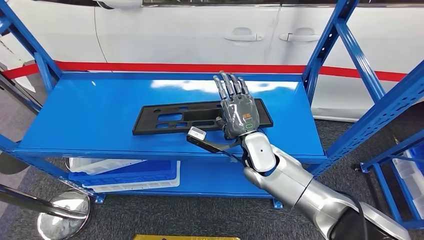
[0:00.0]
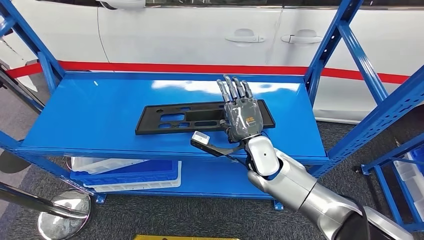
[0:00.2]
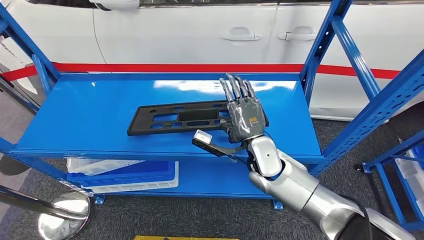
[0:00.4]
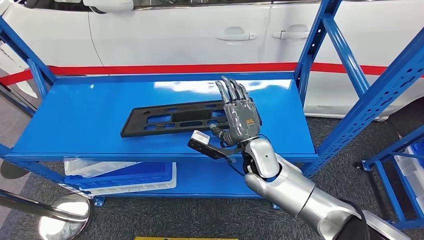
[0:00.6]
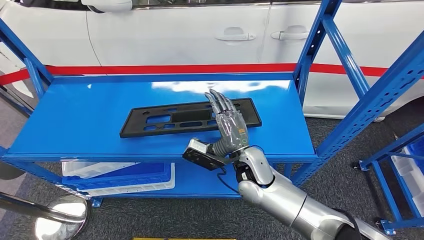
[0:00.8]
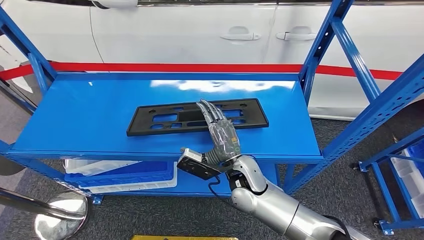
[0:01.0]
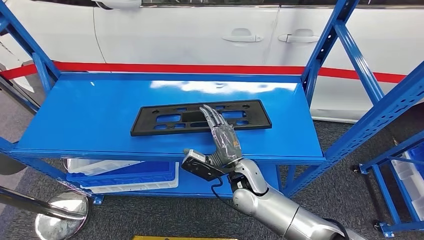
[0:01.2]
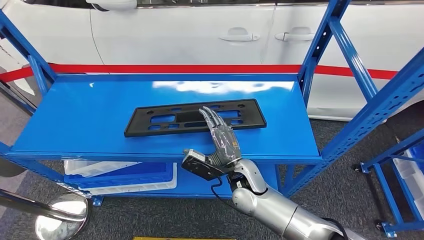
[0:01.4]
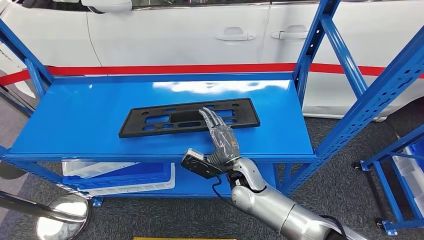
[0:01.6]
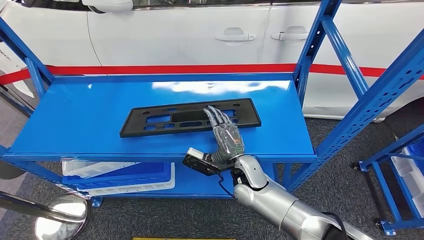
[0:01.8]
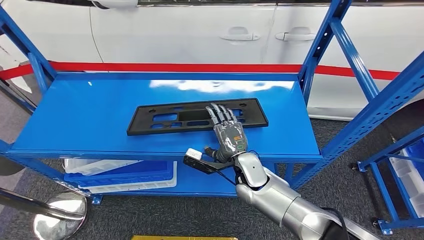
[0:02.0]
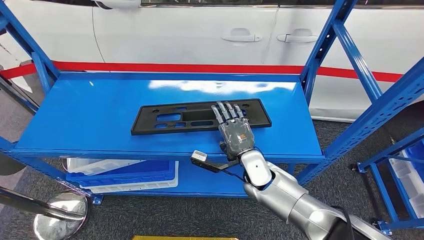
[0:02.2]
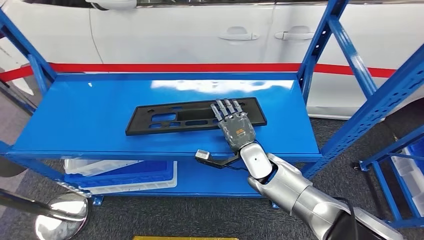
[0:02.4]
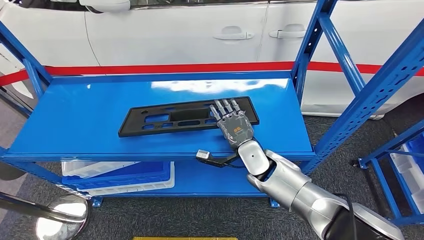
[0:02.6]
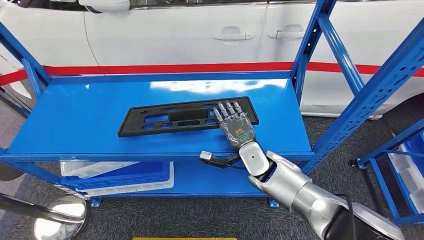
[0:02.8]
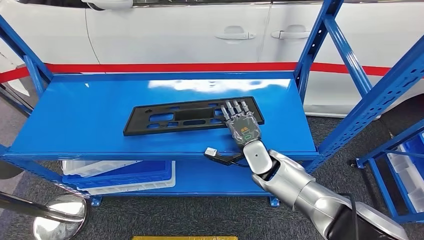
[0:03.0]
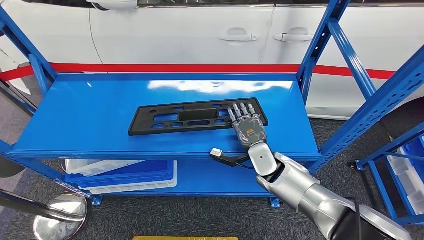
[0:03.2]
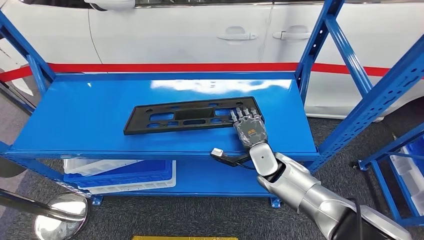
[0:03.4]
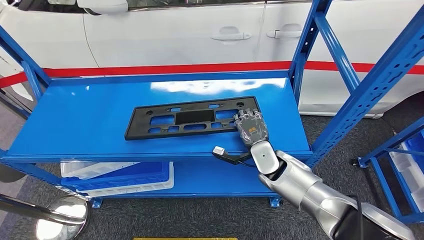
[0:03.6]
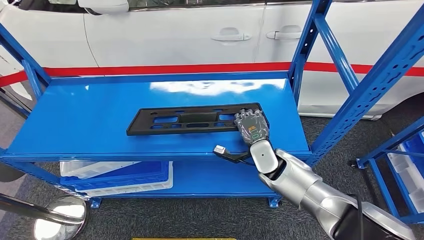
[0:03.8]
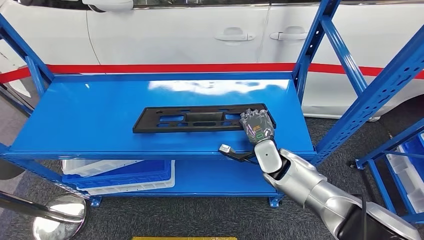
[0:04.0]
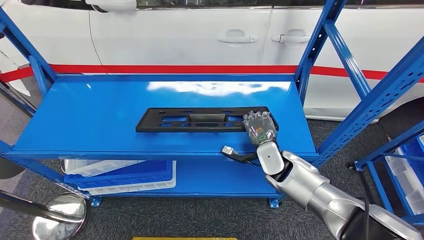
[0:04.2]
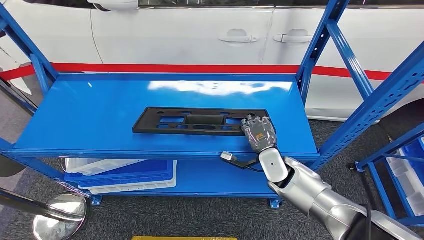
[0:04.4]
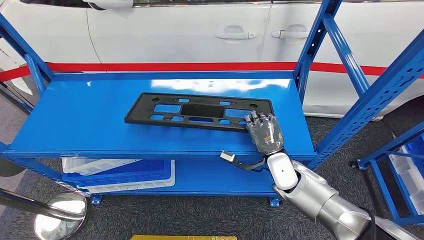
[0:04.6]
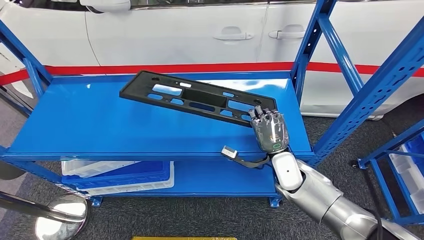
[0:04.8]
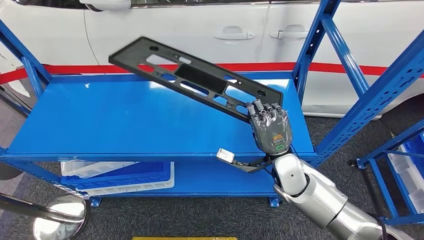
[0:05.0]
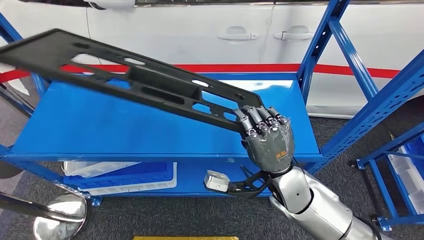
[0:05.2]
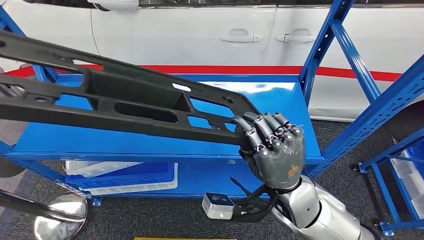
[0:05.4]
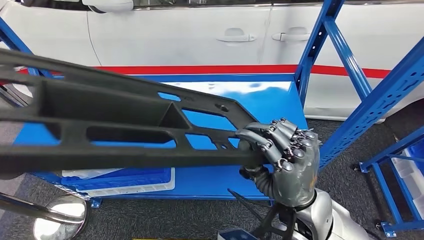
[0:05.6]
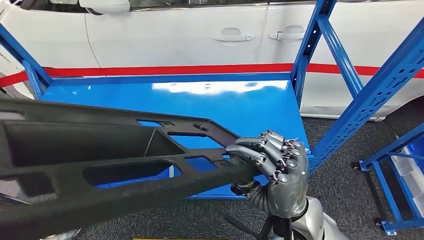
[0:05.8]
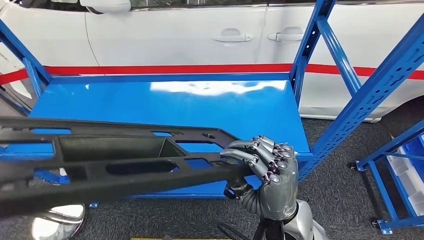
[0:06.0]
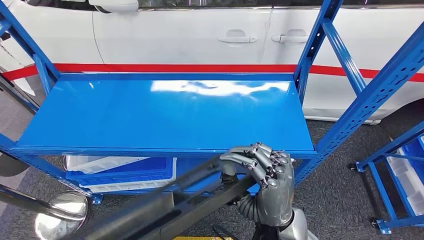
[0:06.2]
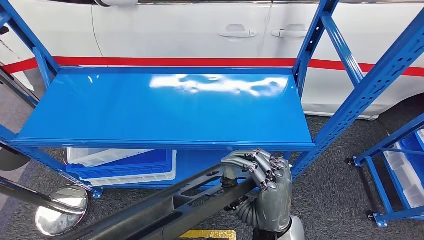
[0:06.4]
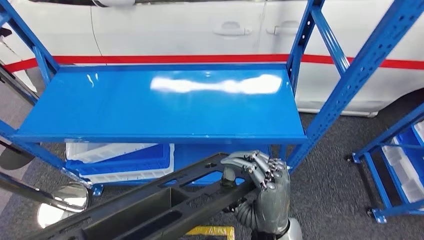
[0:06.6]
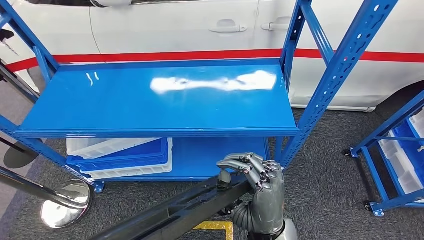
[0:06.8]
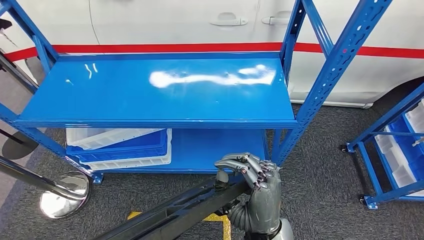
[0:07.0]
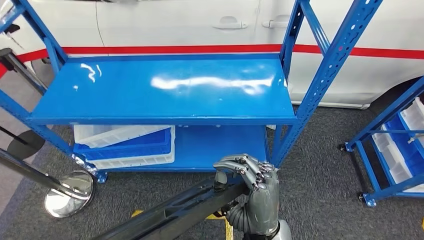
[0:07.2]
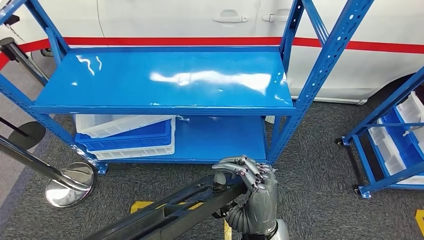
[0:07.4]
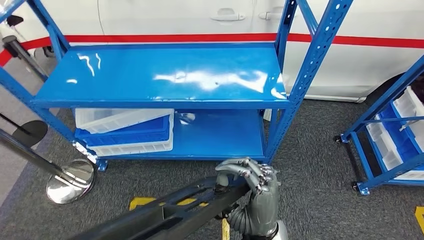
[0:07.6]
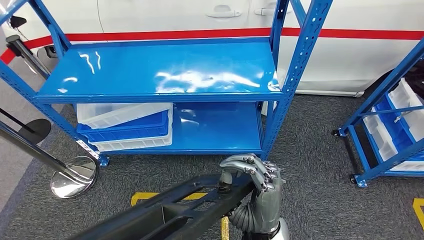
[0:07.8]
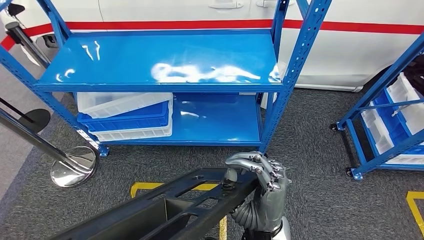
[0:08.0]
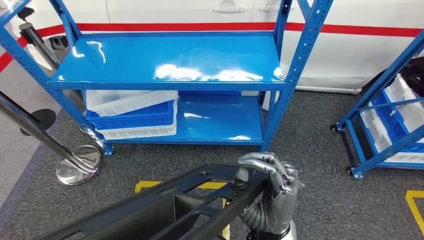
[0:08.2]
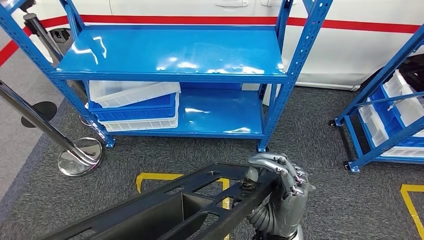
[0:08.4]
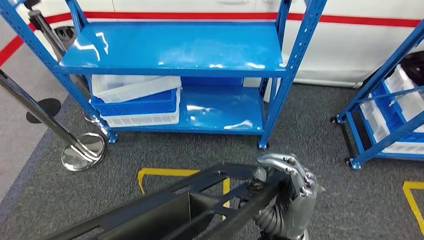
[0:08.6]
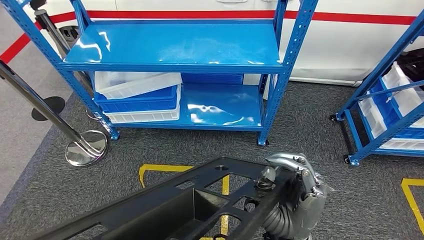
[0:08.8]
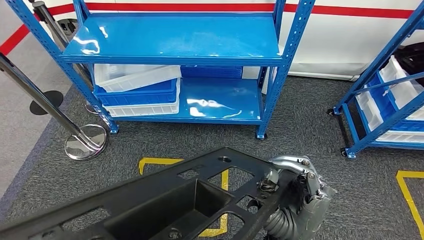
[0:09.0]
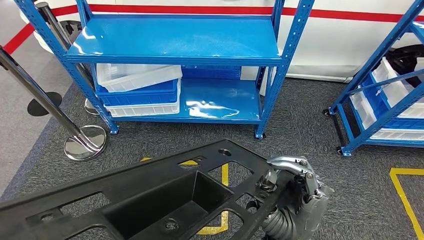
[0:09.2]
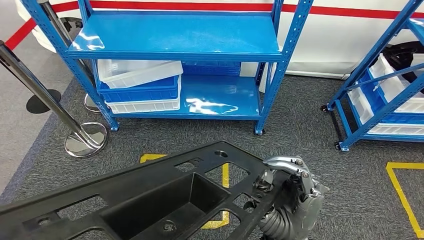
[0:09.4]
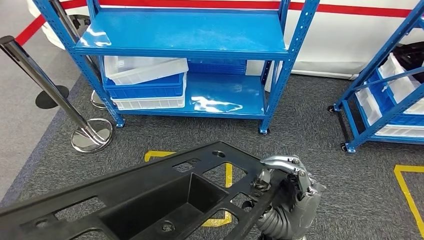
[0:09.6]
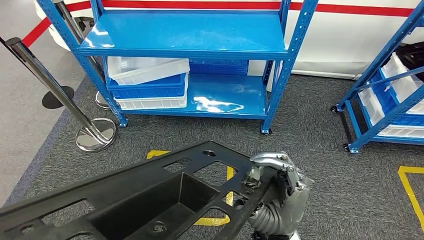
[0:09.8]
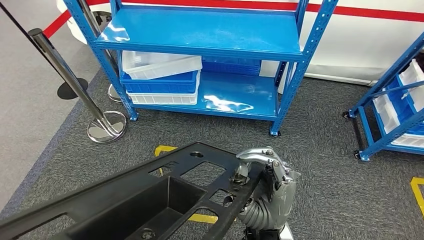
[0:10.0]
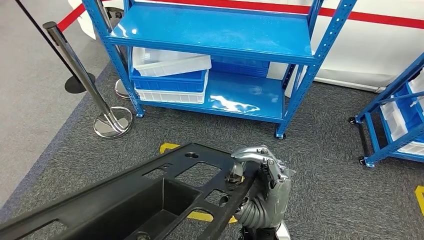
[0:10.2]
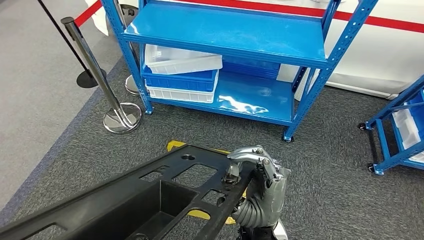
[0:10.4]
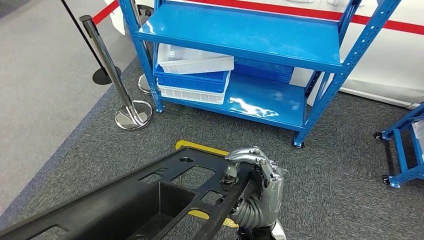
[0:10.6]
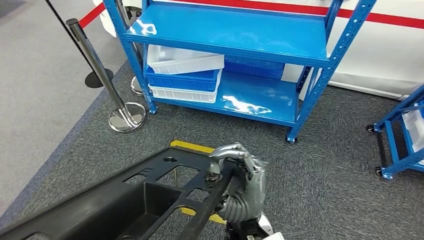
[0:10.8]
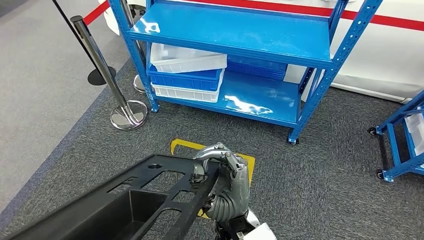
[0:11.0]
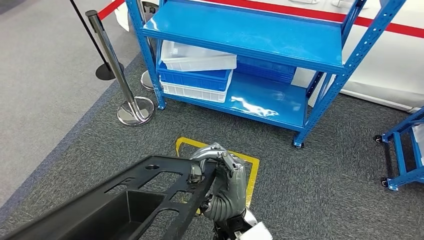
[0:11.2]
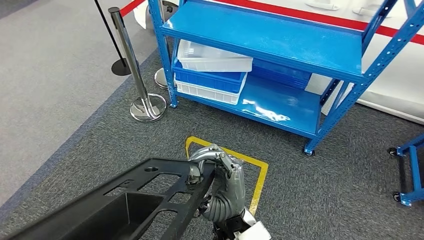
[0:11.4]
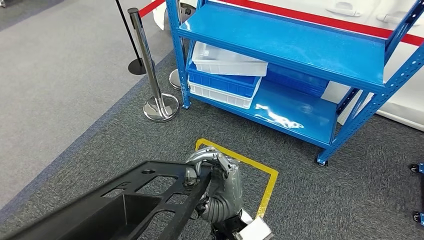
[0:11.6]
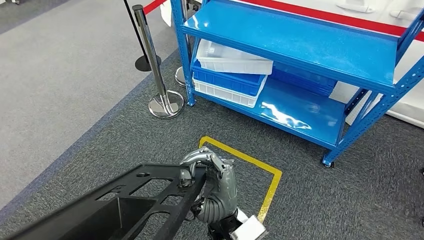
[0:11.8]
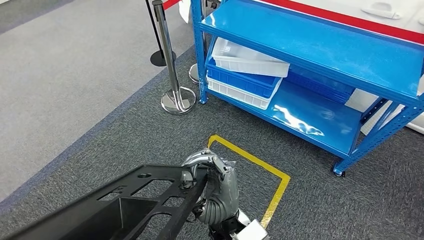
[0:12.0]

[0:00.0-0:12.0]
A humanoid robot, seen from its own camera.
Step, 0:00.0 to 0:06.8: Pick up the large material from the shelf.

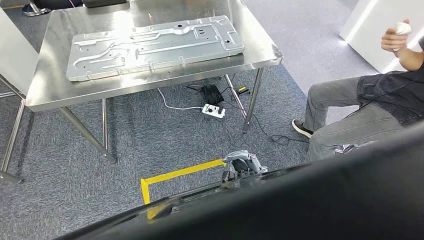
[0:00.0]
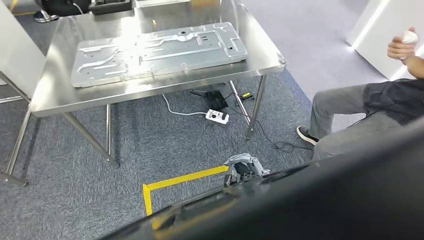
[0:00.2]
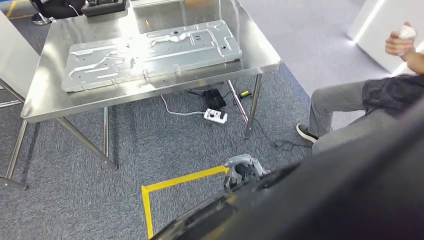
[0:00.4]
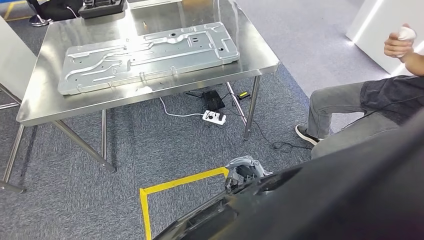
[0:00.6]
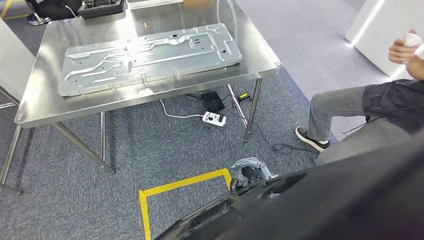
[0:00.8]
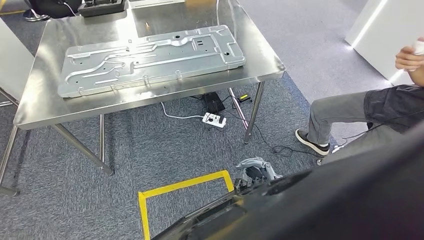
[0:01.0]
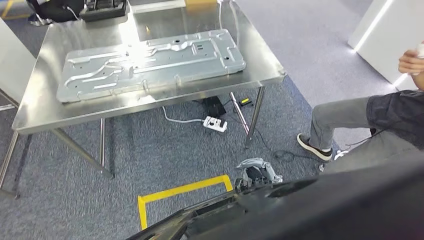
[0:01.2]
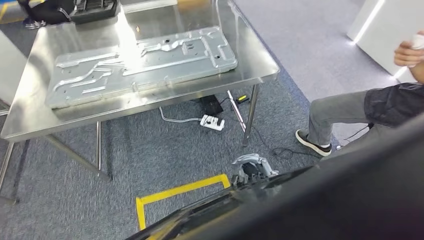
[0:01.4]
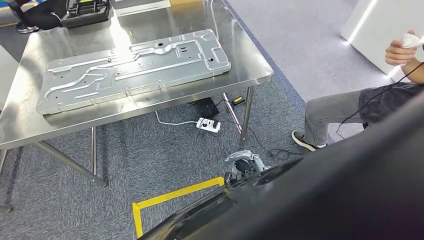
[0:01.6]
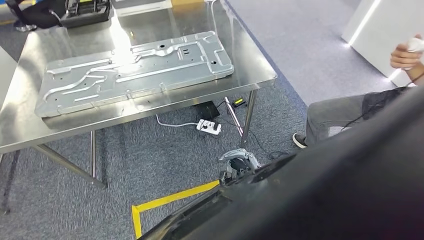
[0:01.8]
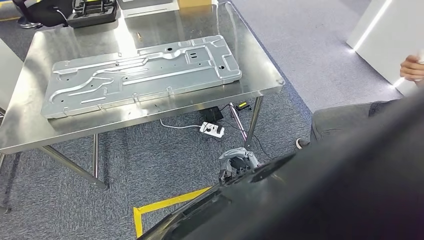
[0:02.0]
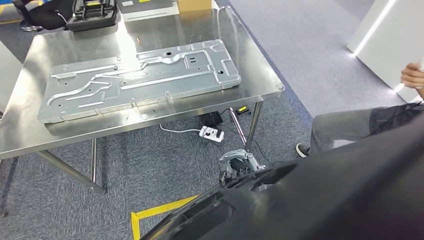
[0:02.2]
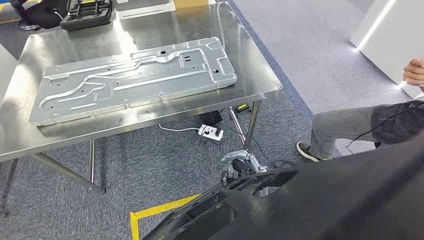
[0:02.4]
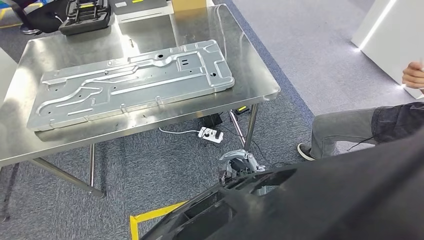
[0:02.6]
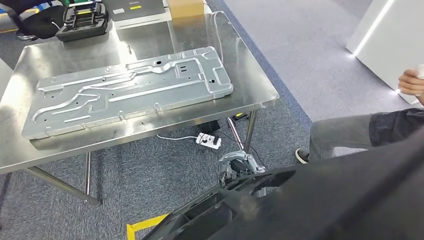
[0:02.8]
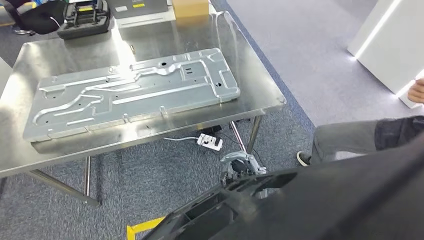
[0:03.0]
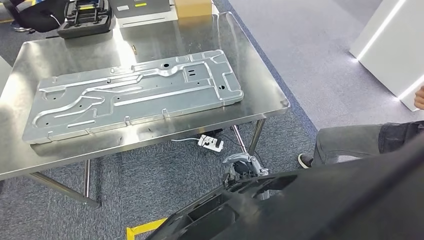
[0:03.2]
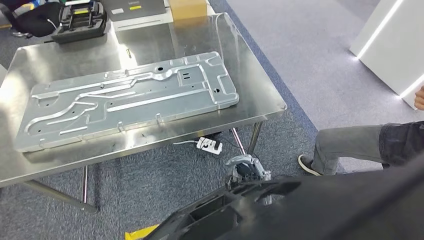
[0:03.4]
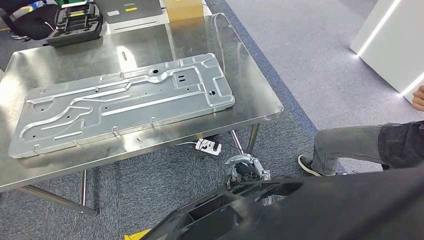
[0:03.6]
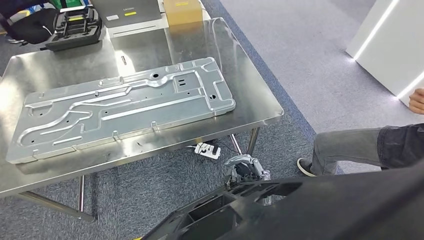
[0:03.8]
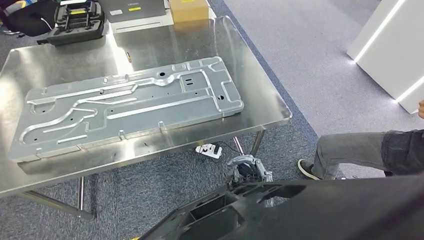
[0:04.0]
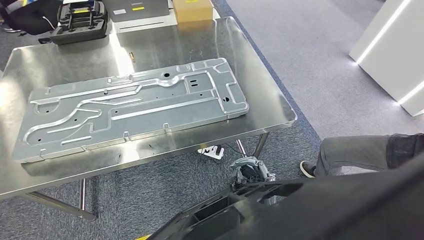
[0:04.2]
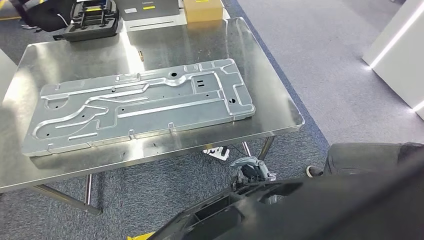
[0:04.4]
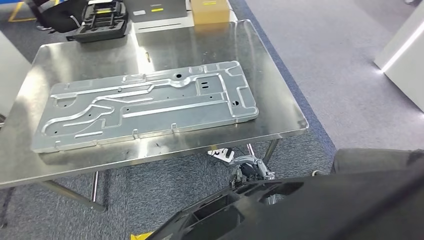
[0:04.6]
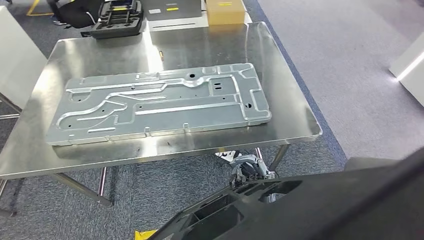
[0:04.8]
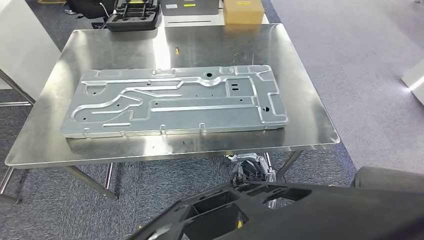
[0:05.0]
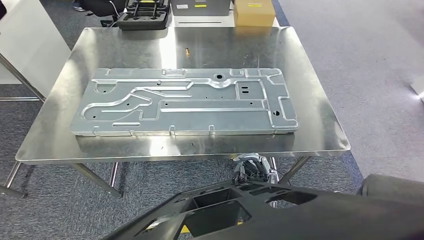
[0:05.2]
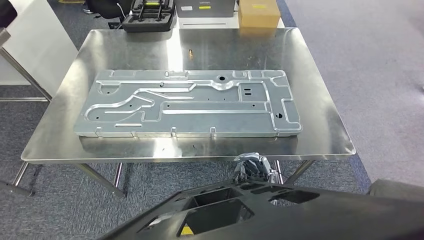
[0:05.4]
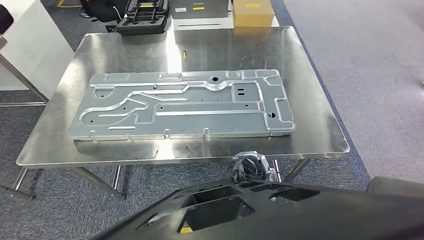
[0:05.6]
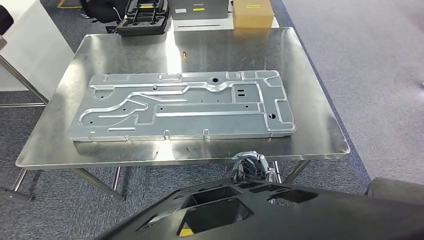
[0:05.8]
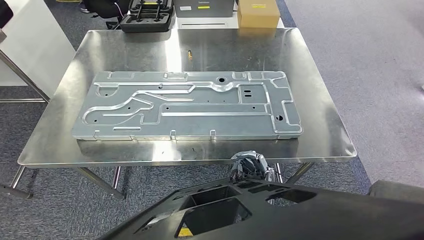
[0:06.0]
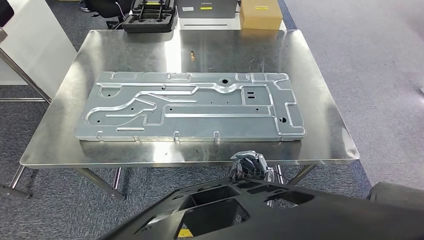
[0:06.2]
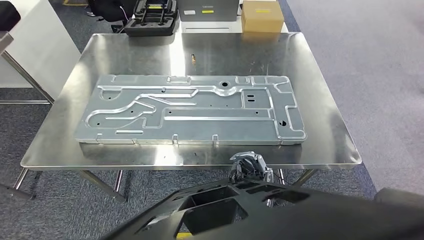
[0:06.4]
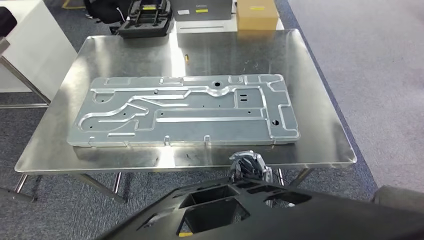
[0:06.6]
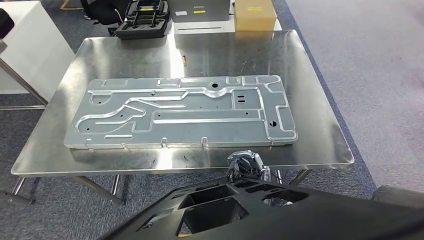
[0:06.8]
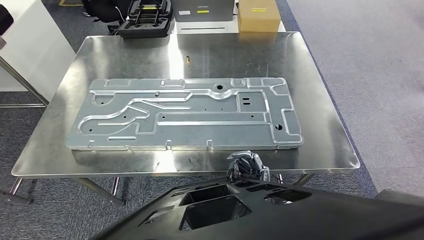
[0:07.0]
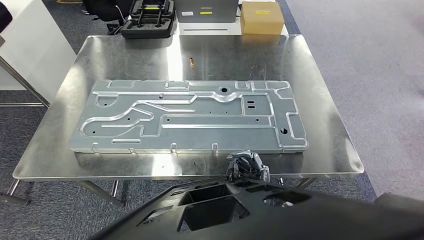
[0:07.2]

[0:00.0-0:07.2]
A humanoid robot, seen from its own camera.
Step, 0:00.0 to 0:03.0: Move the large material to the workbench.
